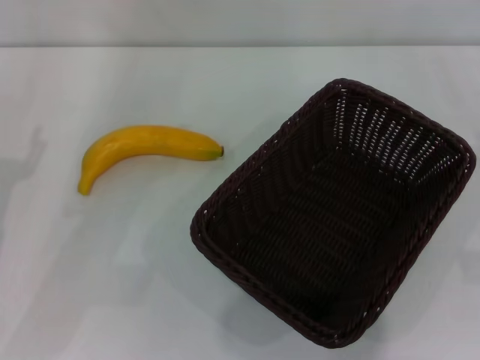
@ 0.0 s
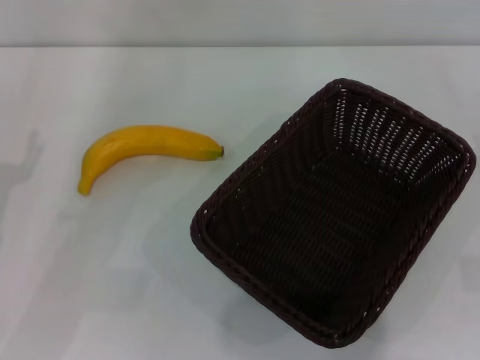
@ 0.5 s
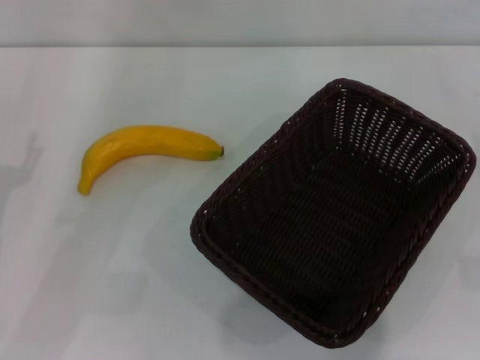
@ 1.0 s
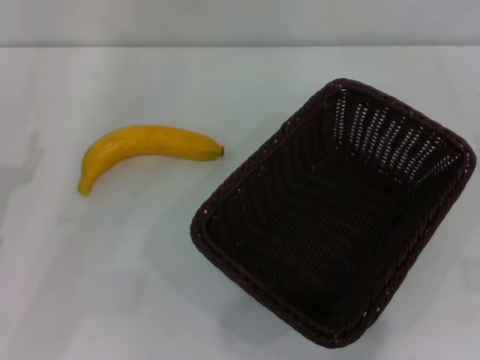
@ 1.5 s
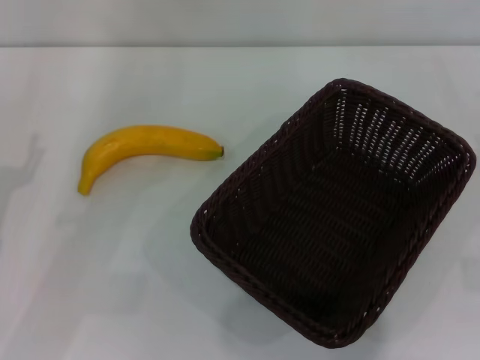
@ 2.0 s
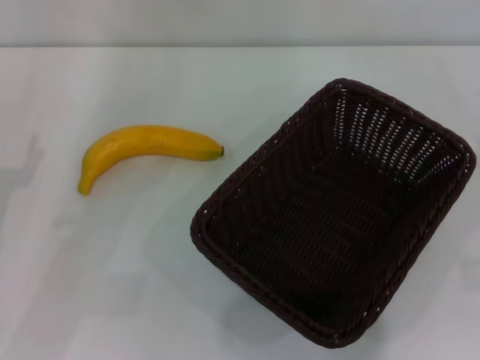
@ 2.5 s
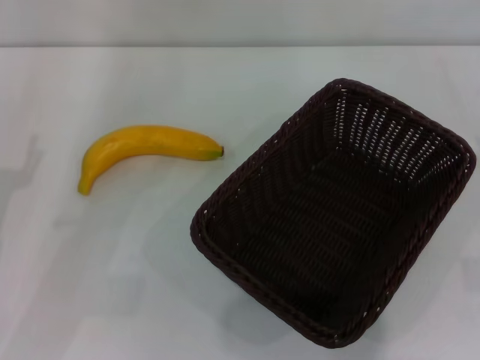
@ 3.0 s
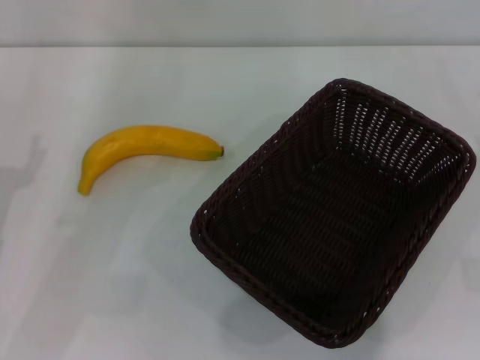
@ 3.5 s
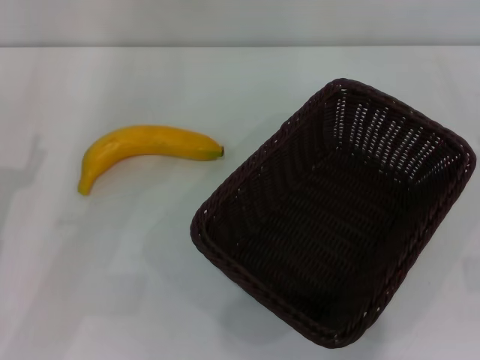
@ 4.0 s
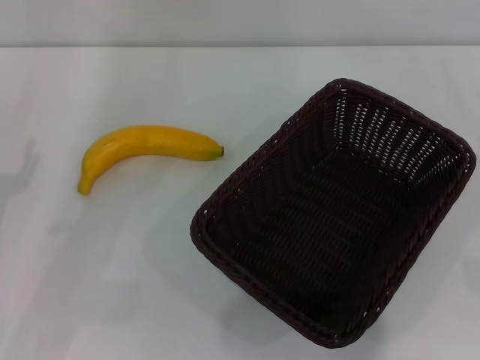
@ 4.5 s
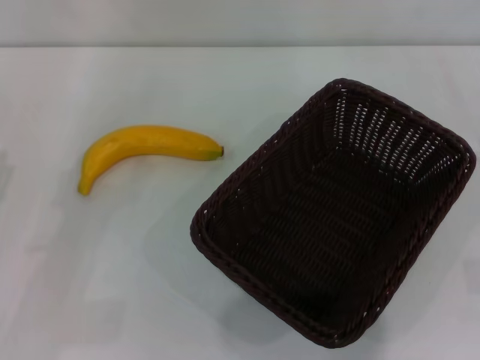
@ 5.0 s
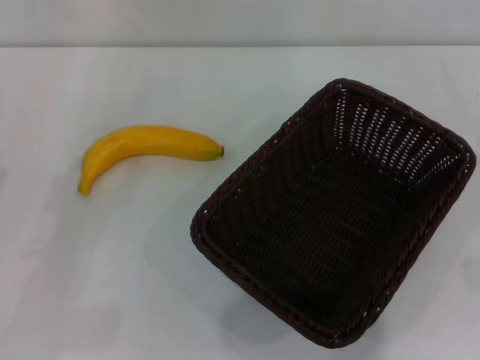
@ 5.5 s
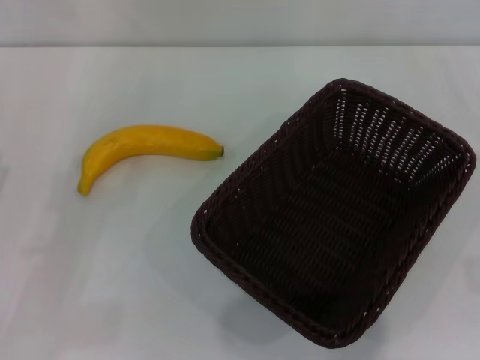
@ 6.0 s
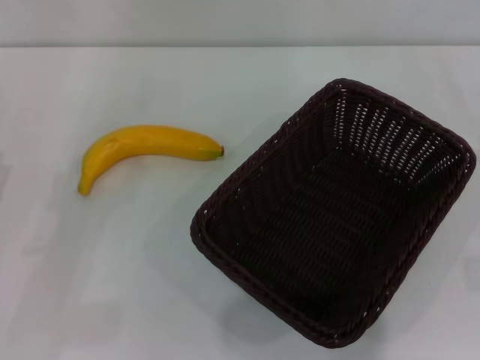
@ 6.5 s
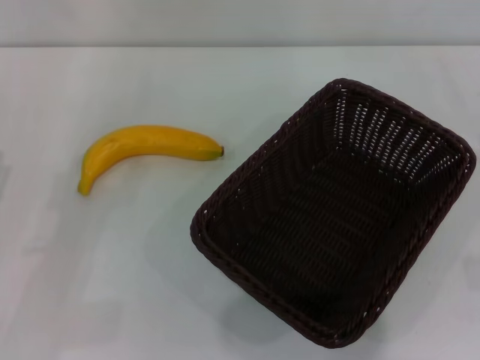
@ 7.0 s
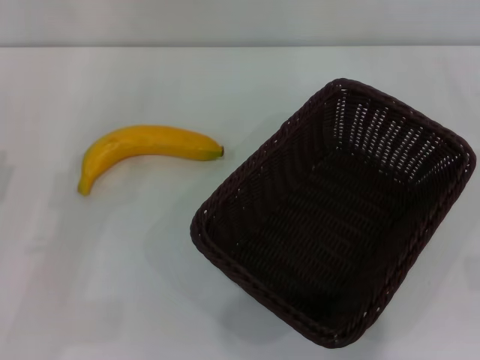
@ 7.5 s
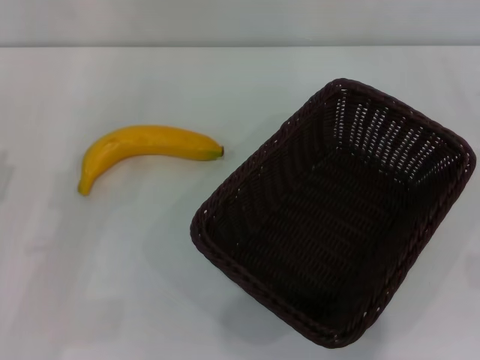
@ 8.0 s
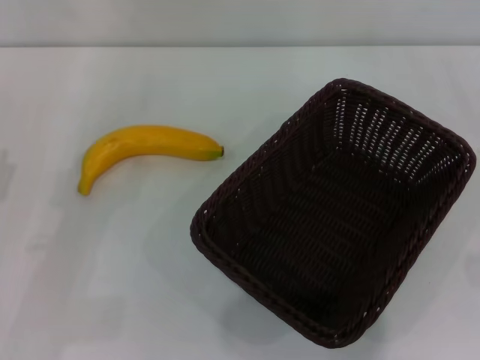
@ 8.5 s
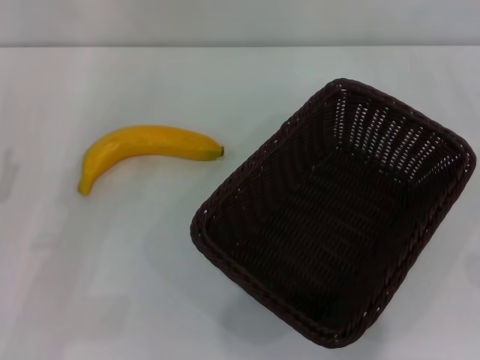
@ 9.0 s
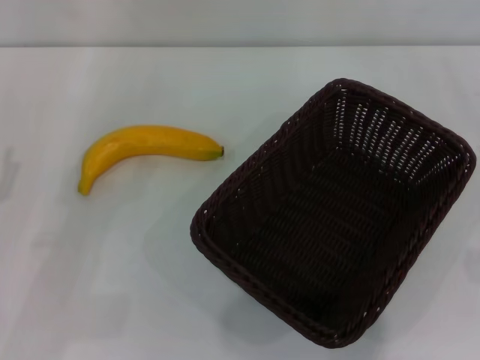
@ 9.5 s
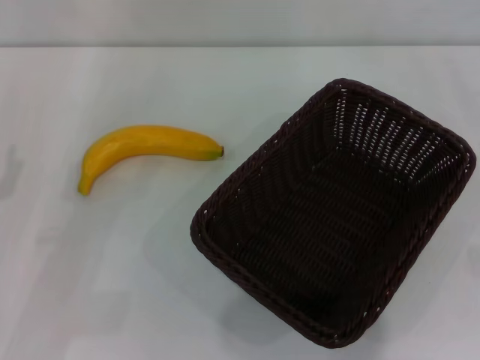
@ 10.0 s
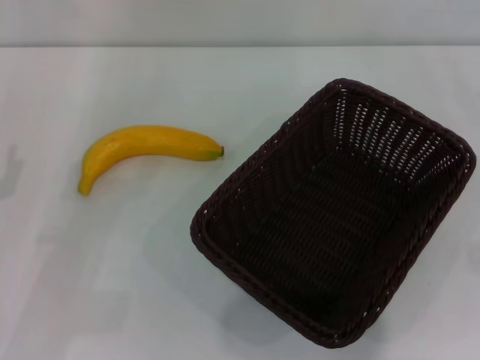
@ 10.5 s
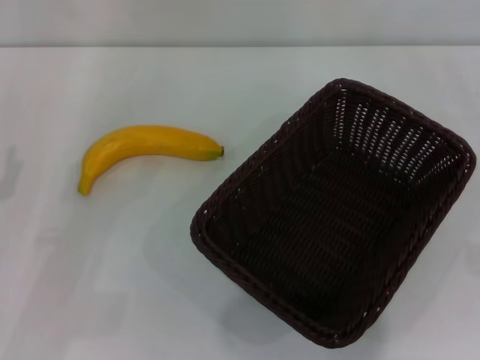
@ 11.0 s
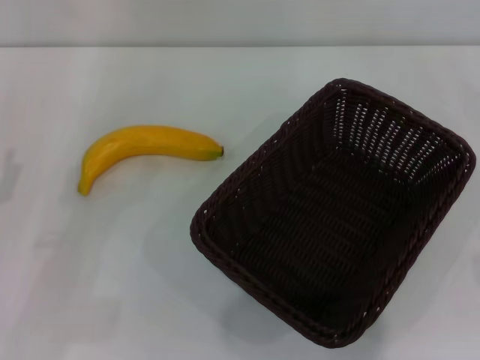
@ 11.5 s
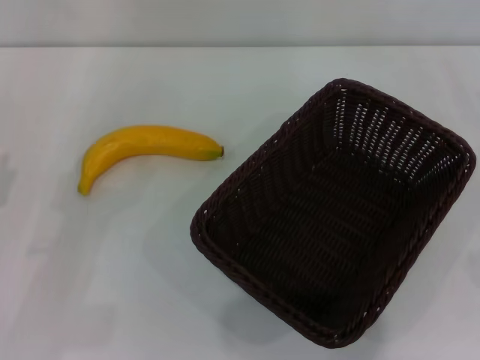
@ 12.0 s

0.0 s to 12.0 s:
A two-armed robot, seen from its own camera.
0.0 to 2.0 s: Both grippers stay put.
2.0 to 4.0 s: The two grippers keep their place.
6.0 to 8.0 s: Both grippers stay put.
8.0 to 10.0 s: The two grippers keep their place.
10.0 to 12.0 s: The two grippers keep their place.

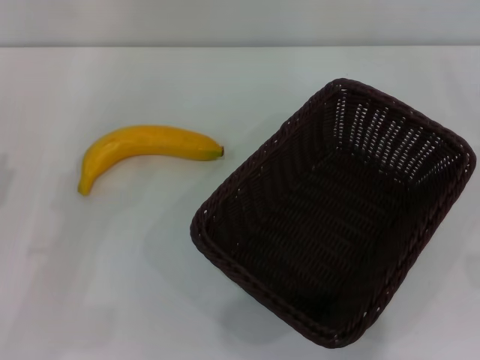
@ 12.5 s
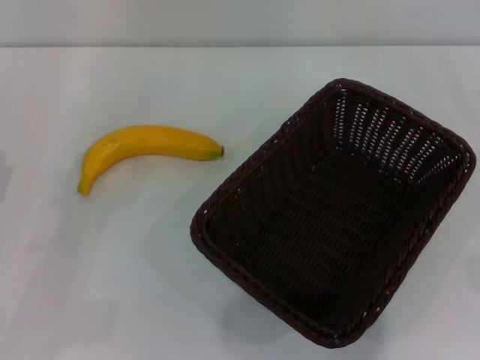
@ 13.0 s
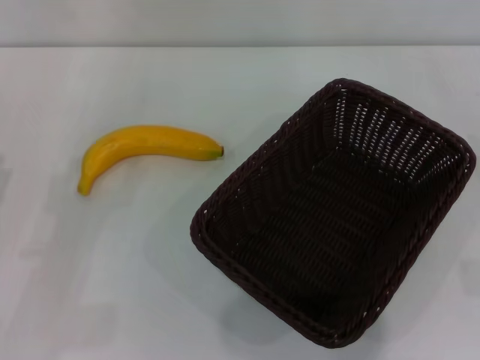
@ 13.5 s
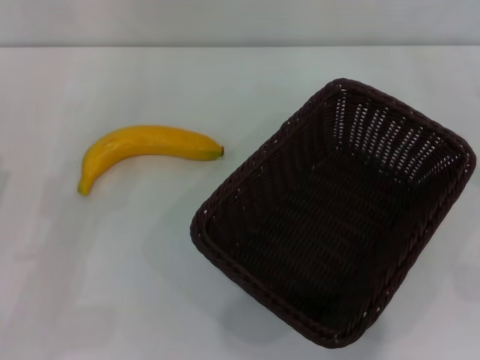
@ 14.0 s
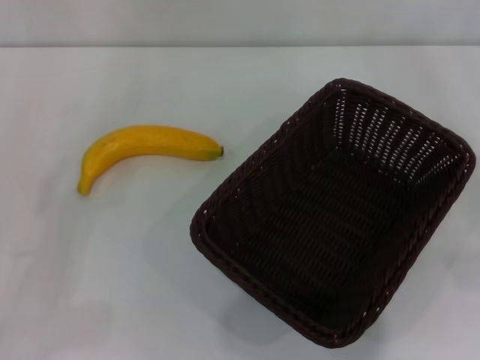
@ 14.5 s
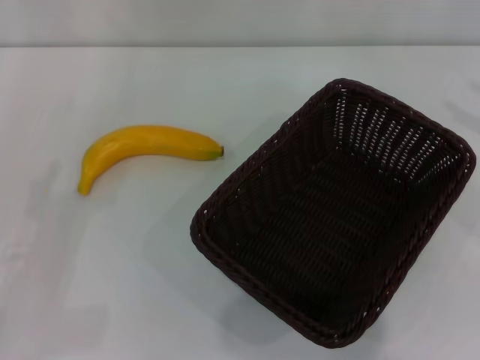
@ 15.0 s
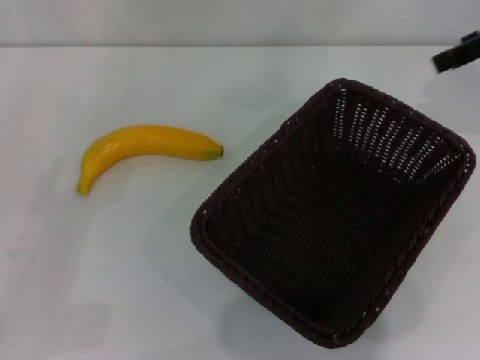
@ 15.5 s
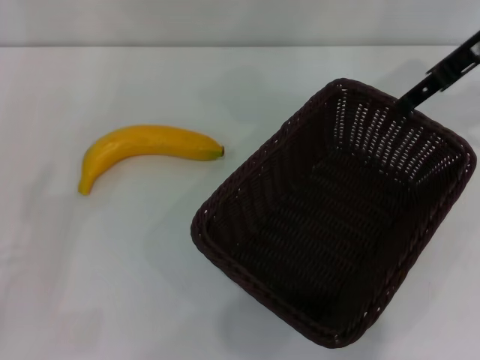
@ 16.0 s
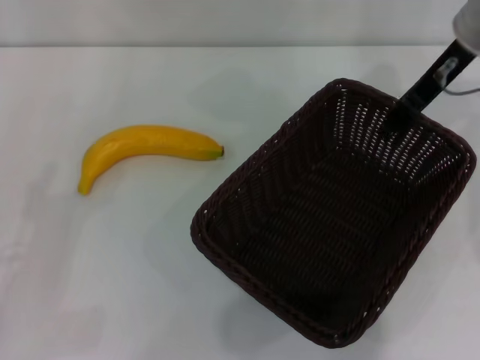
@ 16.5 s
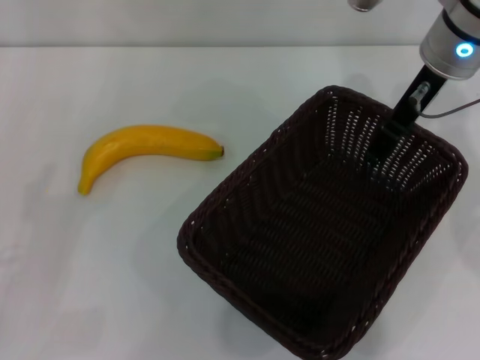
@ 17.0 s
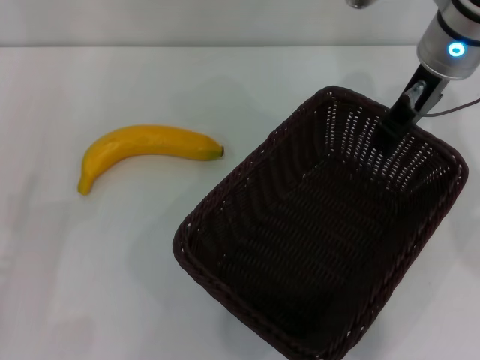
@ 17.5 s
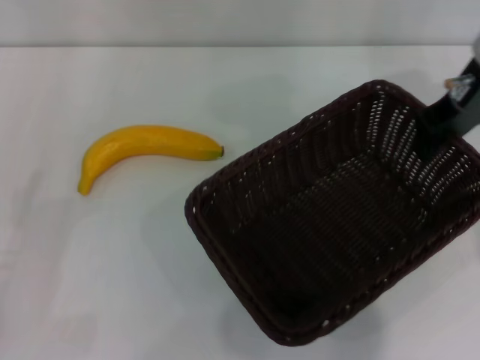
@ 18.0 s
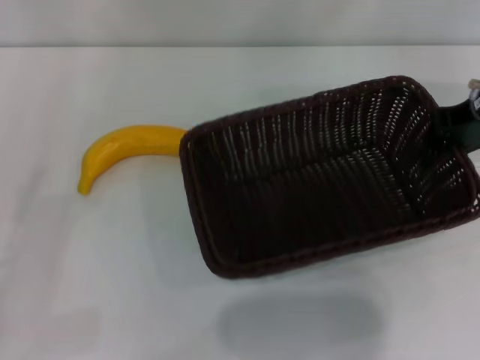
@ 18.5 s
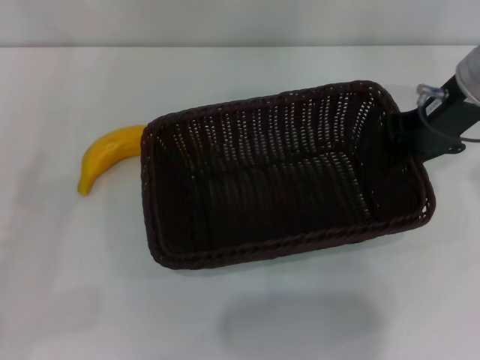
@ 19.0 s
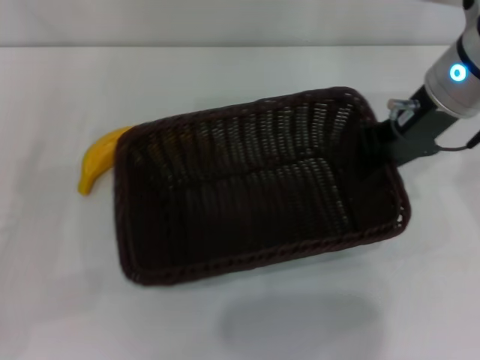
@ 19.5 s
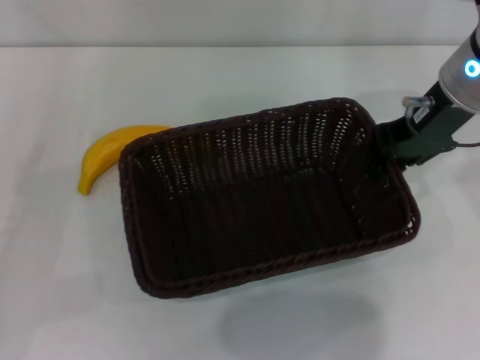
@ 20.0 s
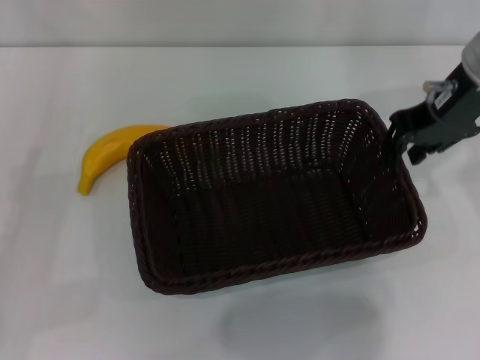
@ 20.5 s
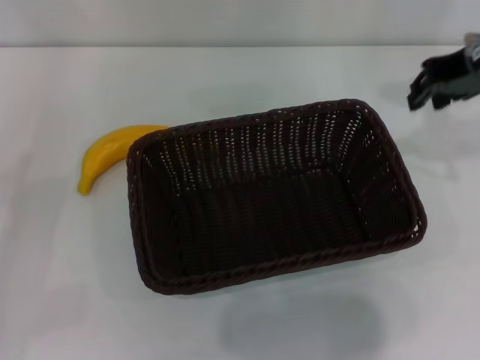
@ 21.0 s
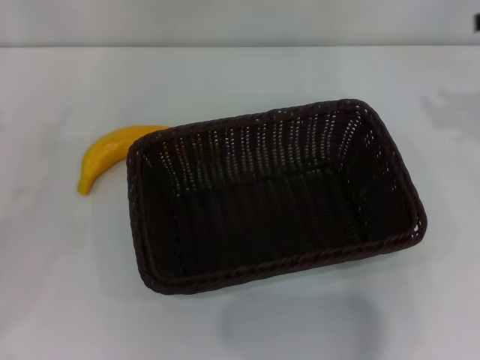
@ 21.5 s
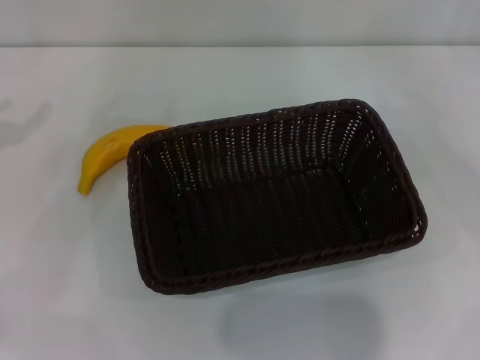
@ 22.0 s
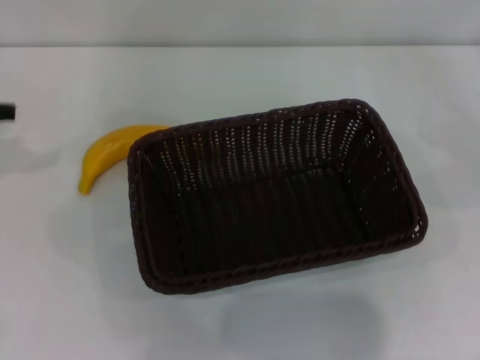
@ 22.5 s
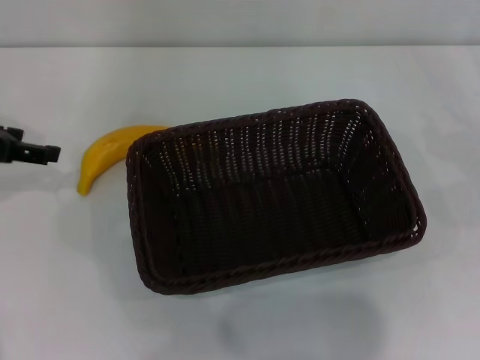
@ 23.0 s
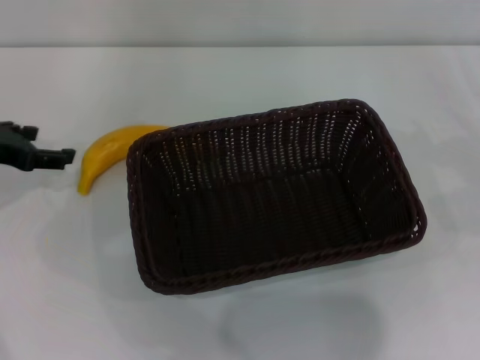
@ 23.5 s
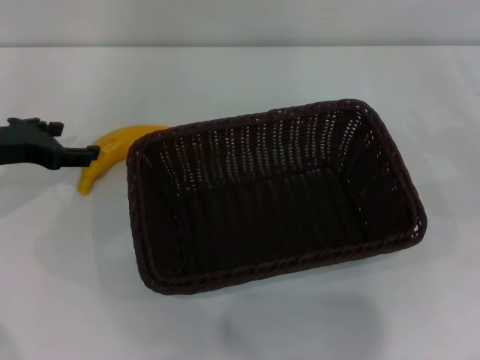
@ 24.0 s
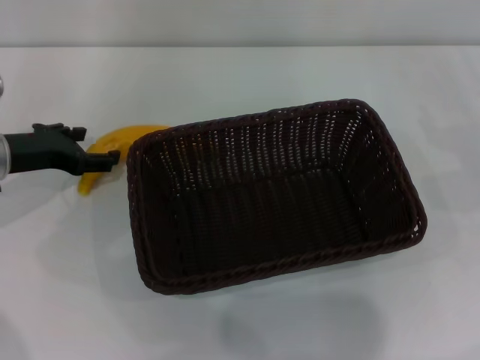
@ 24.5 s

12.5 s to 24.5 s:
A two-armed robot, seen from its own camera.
Step, 12.5 to 18.0 s: Pick up the dark basket with the right gripper.
Step, 18.5 to 21.0 s: Place the dark basket in the center of view with the right gripper.
14.5 to 16.5 s: The right gripper shifts some 30 cm to the left, forward and upward.
16.5 to 18.5 s: The right gripper changes place by roughly 5 cm, and closes its fingers.
18.5 to 20.5 s: The right gripper is displaced to the left by about 5 cm.
20.5 to 22.5 s: The right gripper is displaced to the right by roughly 25 cm.
22.5 to 24.5 s: The left gripper moves downward and to the right, approximately 15 cm.

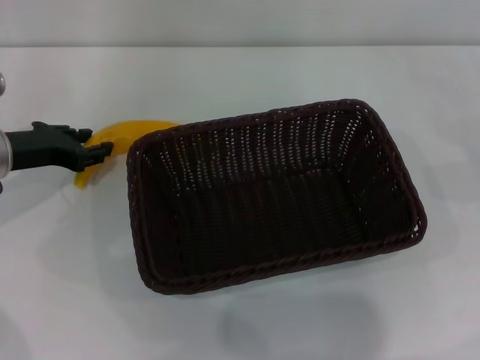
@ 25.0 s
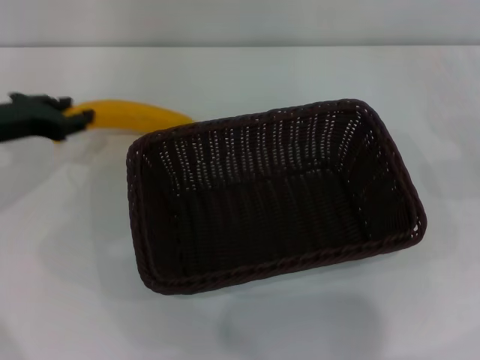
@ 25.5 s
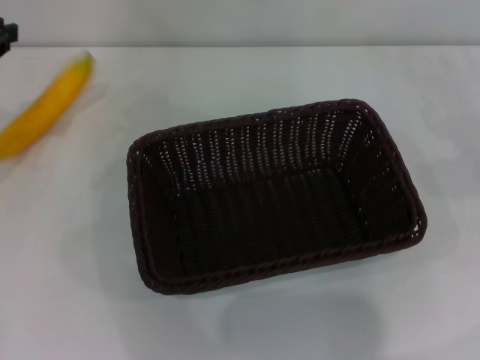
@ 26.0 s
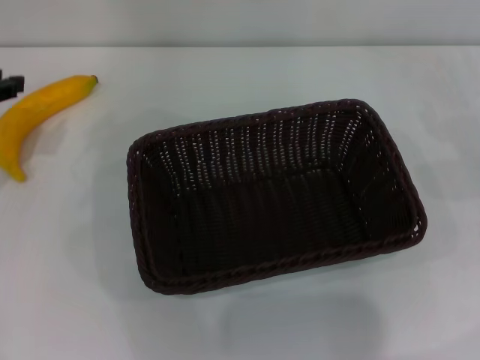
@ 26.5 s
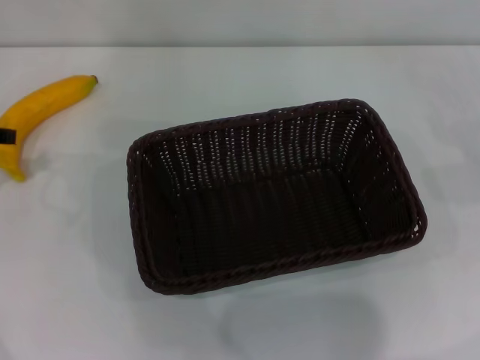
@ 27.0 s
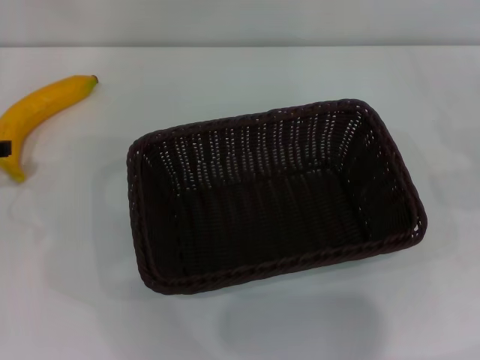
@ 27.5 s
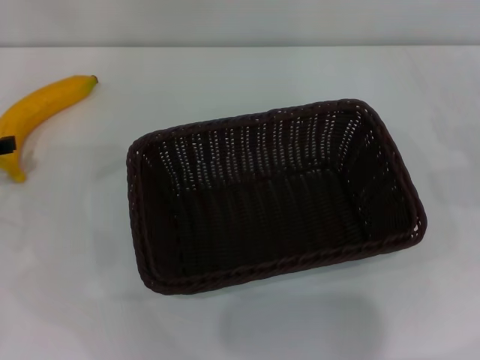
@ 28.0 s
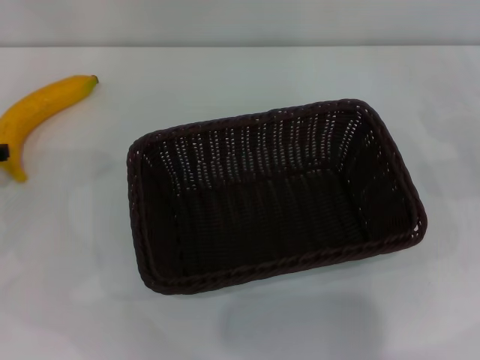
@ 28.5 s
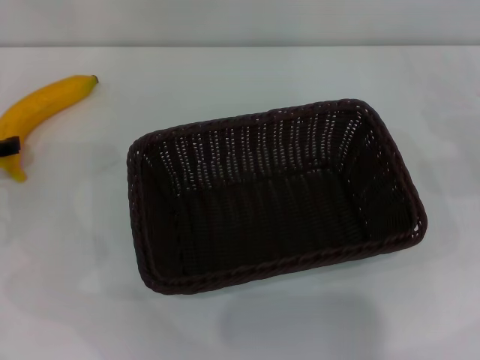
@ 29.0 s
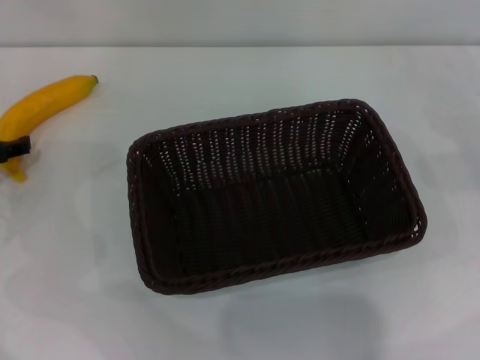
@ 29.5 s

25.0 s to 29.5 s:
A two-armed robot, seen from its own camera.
25.0 to 27.0 s: The left gripper is displaced upward and to the left by roughly 10 cm, and closes and opens again.
27.0 to 29.5 s: The left gripper heads downward, covering roughly 10 cm, and opens its fingers.
